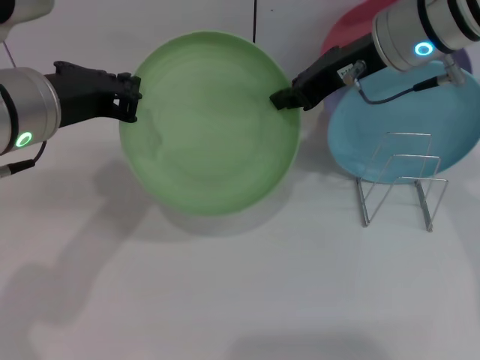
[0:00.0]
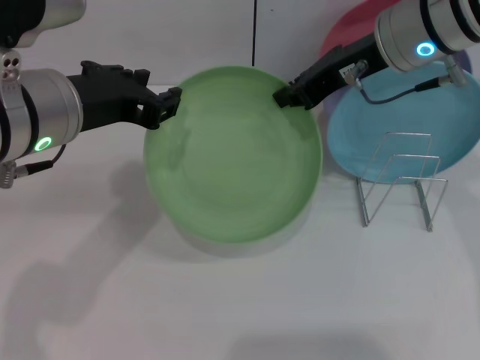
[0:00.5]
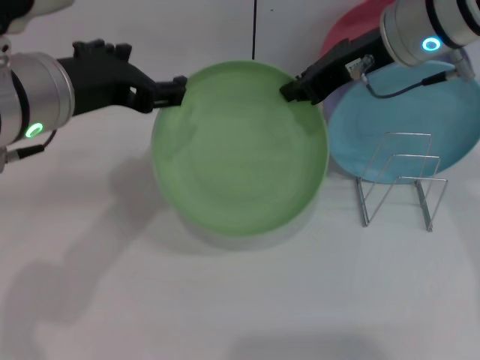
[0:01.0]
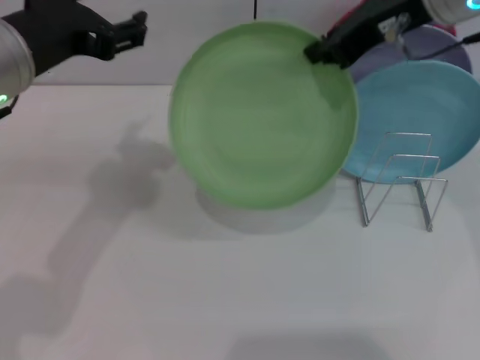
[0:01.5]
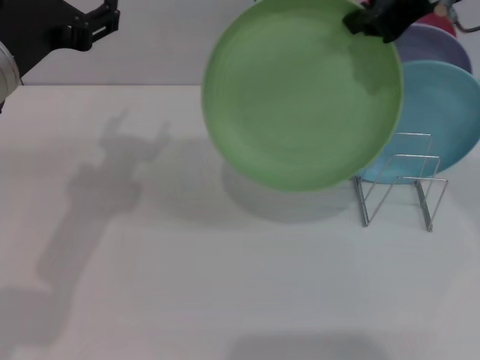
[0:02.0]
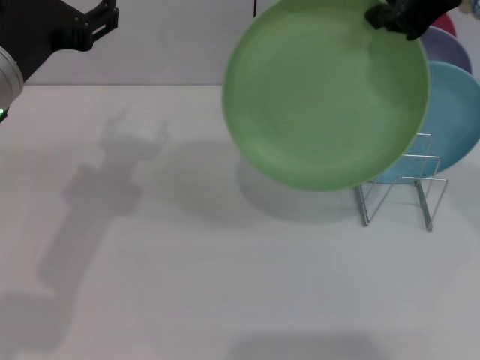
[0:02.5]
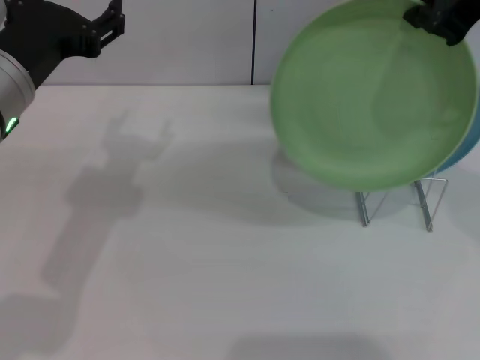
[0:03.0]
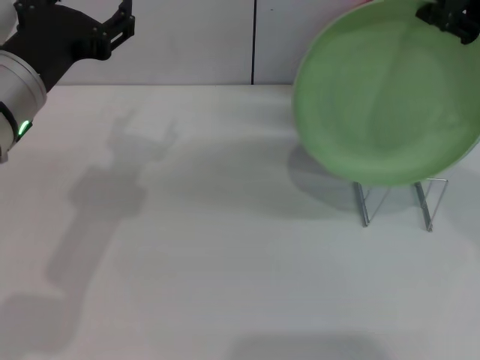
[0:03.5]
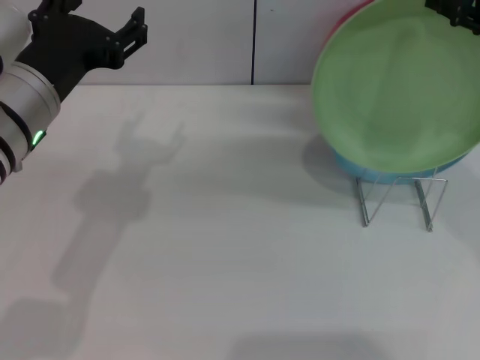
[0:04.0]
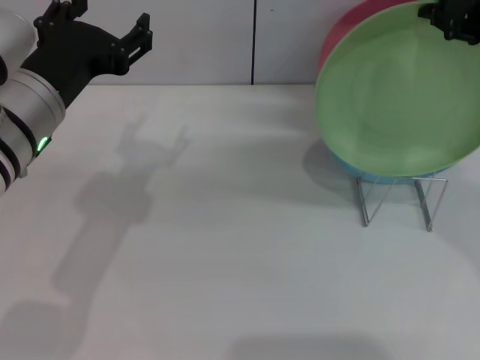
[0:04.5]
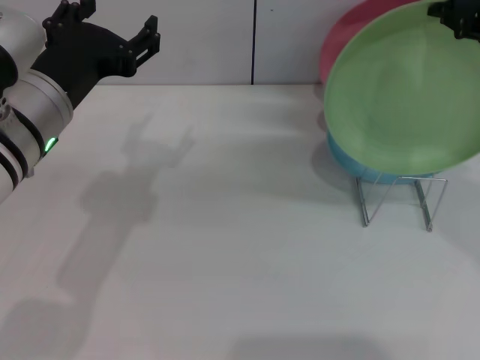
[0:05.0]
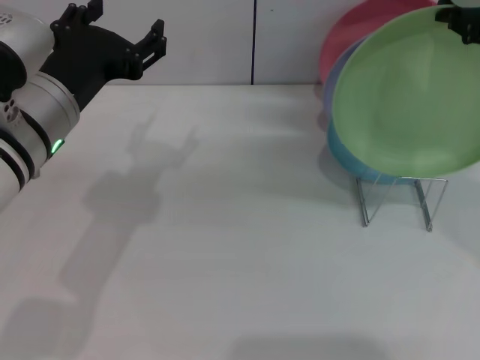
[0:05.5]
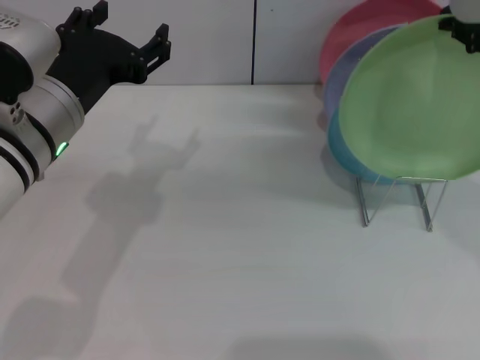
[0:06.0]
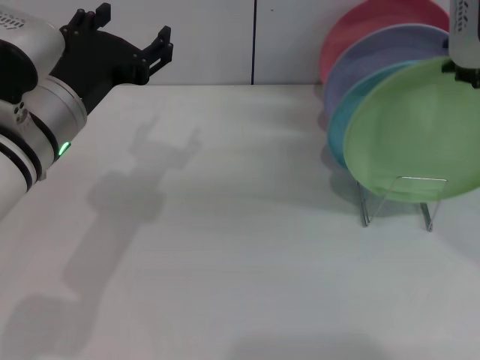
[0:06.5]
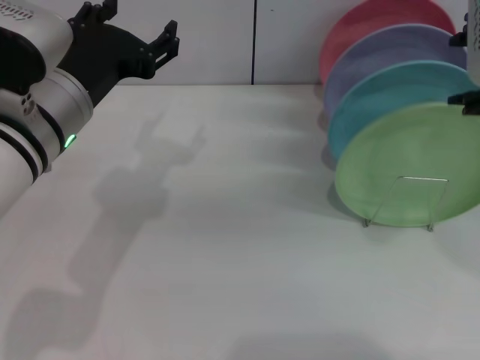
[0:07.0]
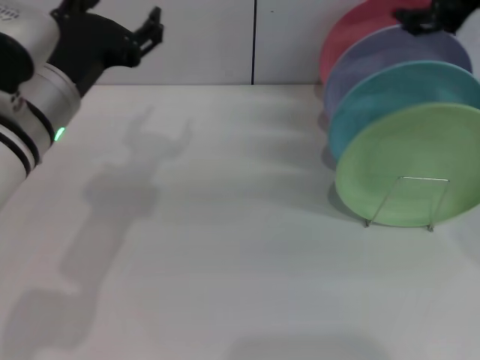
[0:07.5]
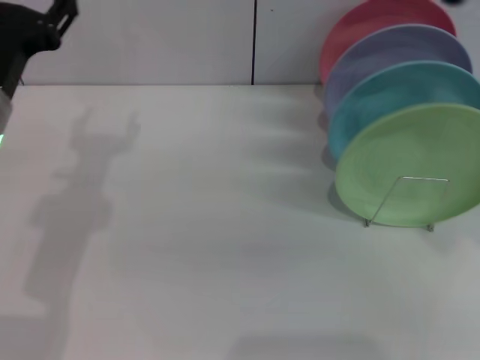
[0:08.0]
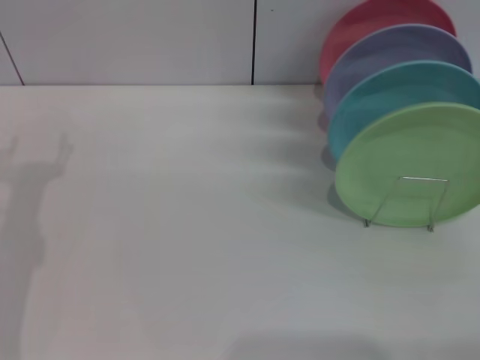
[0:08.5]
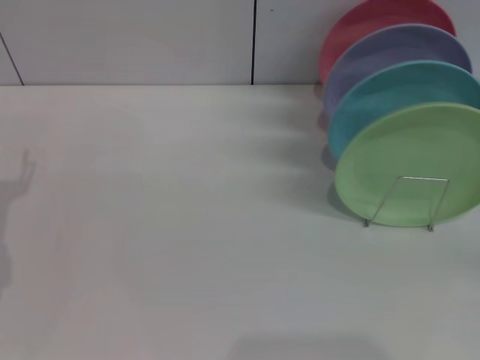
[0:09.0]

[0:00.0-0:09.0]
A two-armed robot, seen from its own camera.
Task of the whole recording: Grip the plate with one hand, pass it to the other, then set it on the shelf.
Step, 0:01.5 to 0:07.0: Place the plate on the shelf with the right gripper.
0:00.0 to 0:02.0: The left gripper opens up. The right gripper goes roughly 10 cm upward.
0:04.5 to 0:07.0: The right gripper opens up.
0:07.0 to 0:09.0: The left gripper goes roughly 20 cm to the left and downward, while the right gripper moves downward, to the right and backward, some 35 cm.
